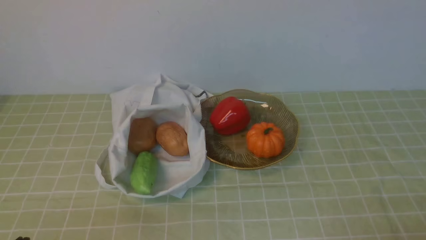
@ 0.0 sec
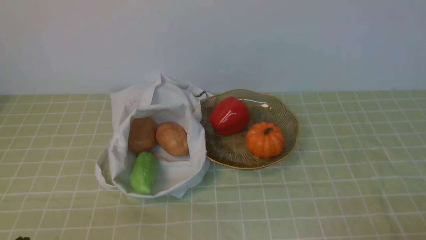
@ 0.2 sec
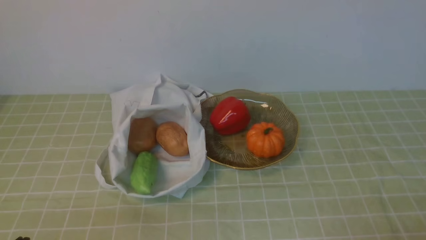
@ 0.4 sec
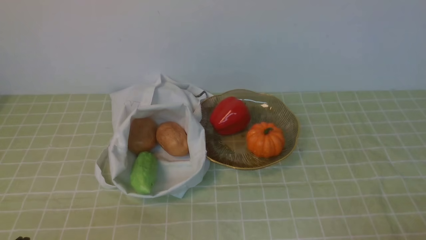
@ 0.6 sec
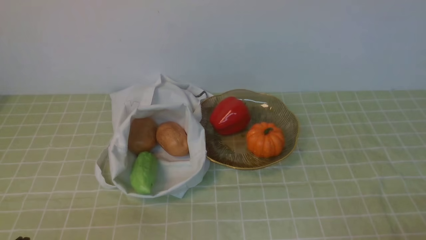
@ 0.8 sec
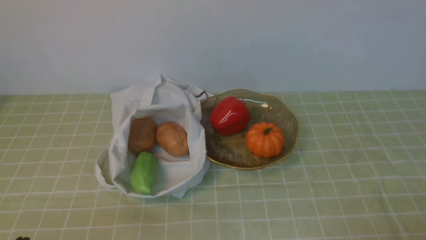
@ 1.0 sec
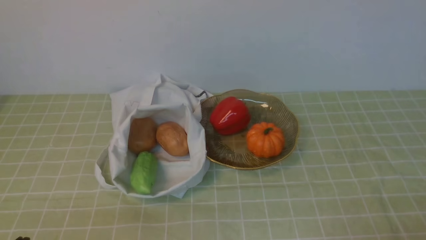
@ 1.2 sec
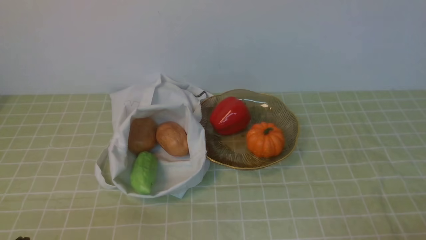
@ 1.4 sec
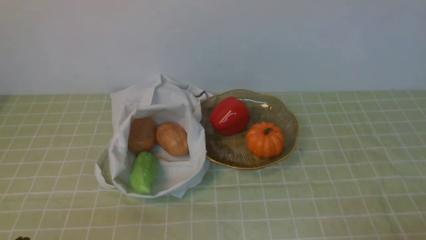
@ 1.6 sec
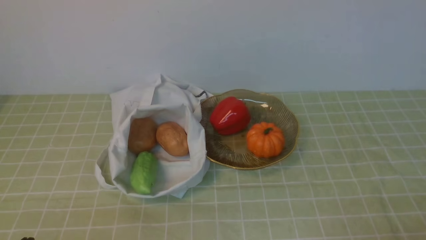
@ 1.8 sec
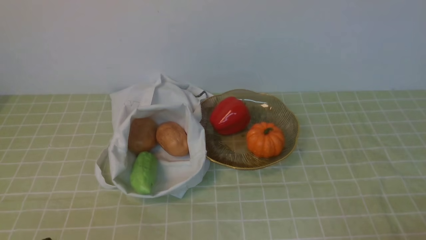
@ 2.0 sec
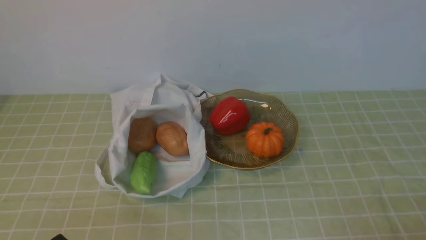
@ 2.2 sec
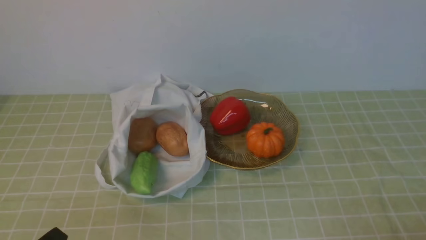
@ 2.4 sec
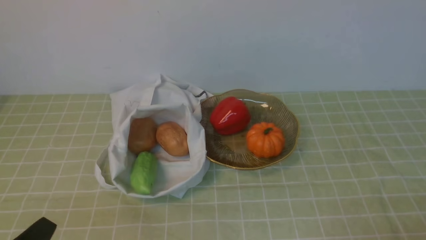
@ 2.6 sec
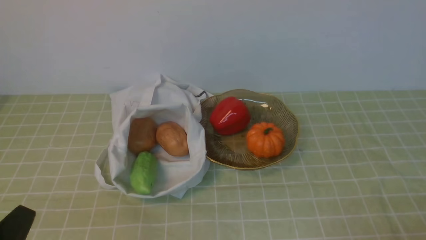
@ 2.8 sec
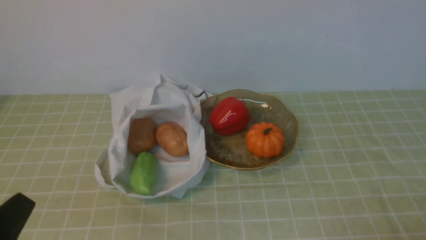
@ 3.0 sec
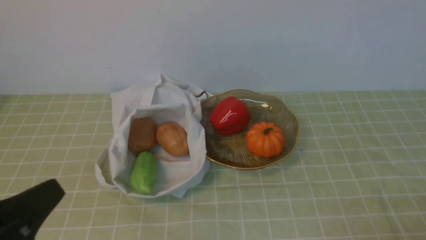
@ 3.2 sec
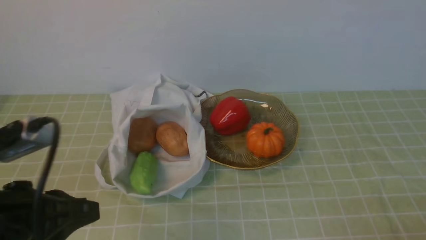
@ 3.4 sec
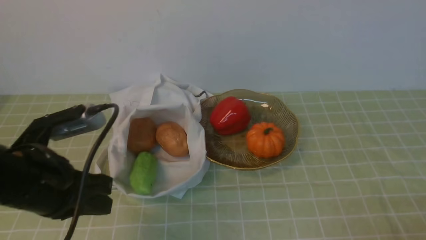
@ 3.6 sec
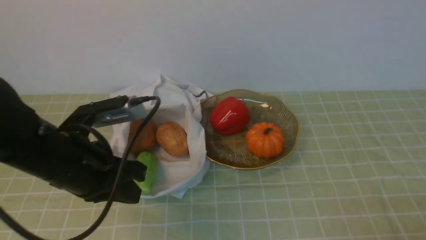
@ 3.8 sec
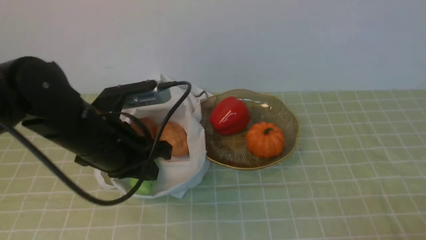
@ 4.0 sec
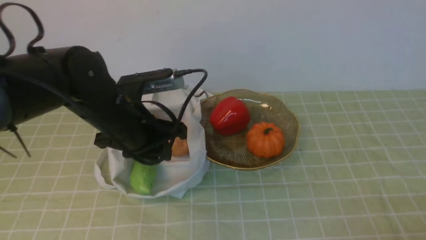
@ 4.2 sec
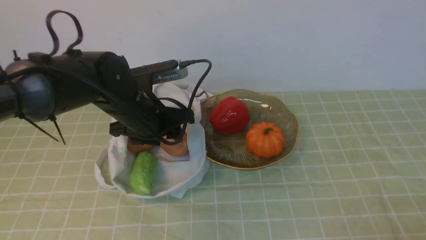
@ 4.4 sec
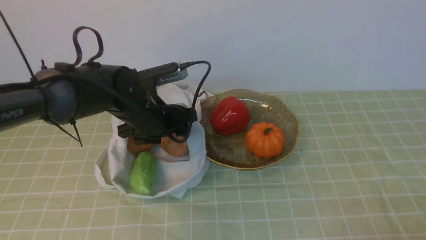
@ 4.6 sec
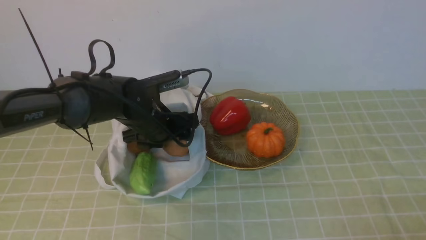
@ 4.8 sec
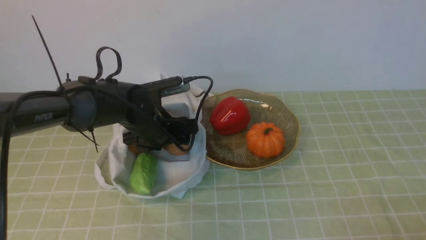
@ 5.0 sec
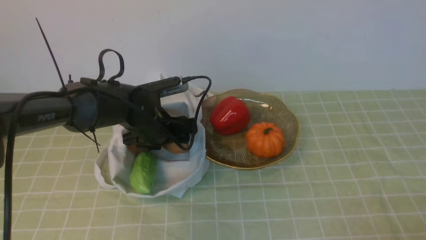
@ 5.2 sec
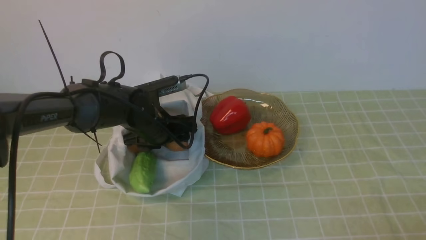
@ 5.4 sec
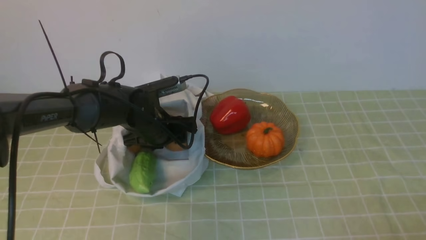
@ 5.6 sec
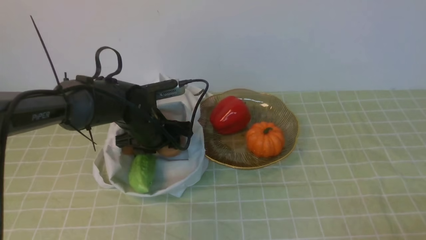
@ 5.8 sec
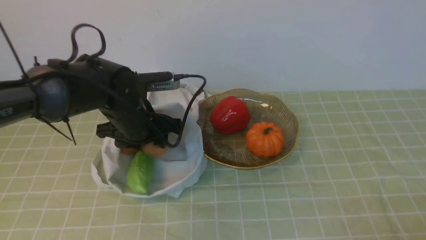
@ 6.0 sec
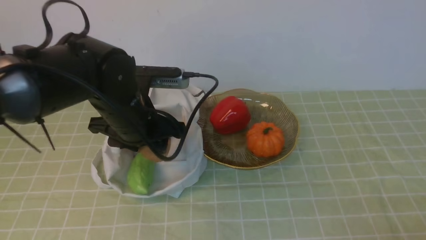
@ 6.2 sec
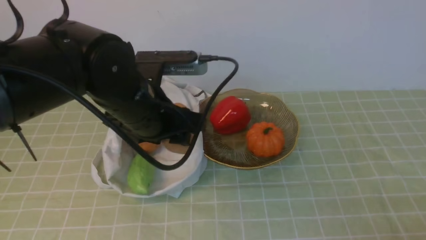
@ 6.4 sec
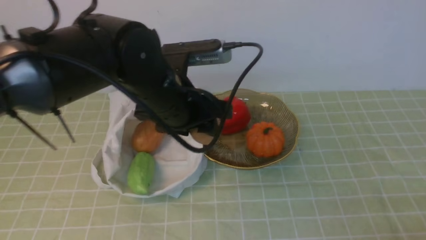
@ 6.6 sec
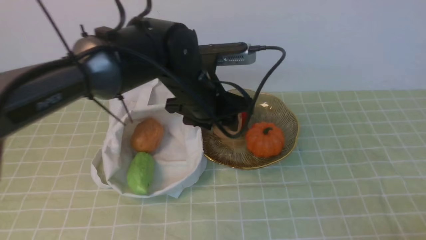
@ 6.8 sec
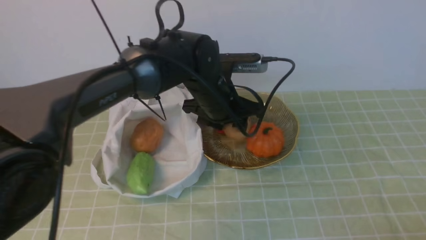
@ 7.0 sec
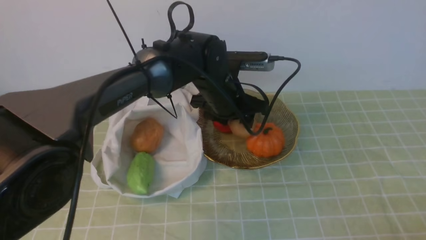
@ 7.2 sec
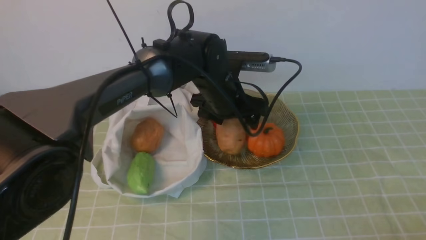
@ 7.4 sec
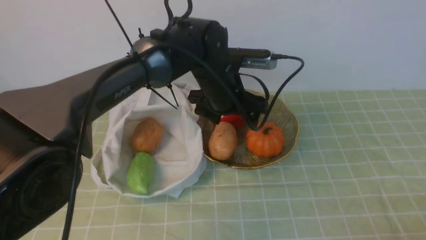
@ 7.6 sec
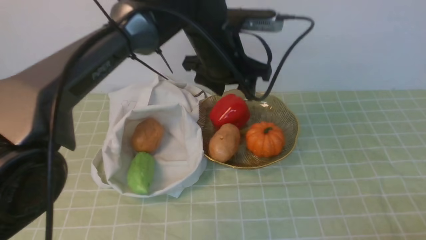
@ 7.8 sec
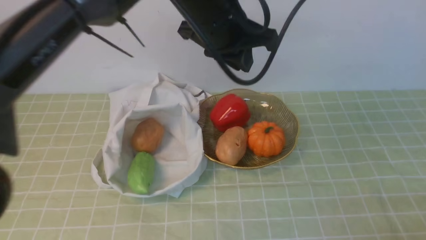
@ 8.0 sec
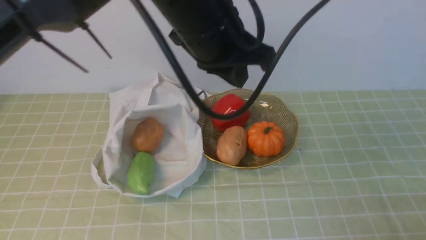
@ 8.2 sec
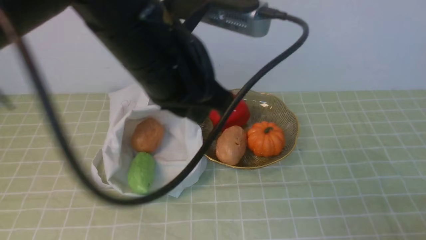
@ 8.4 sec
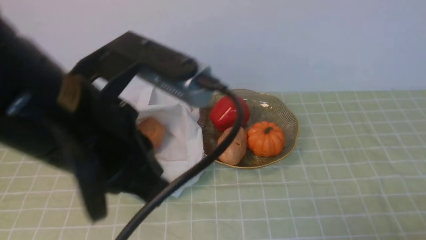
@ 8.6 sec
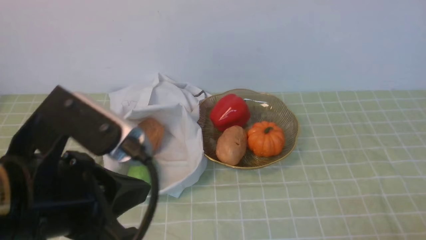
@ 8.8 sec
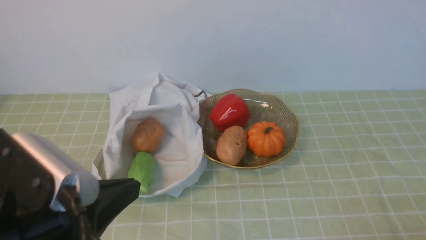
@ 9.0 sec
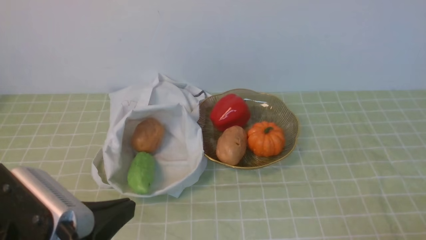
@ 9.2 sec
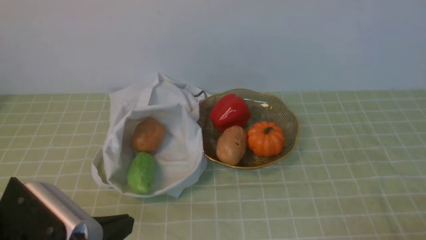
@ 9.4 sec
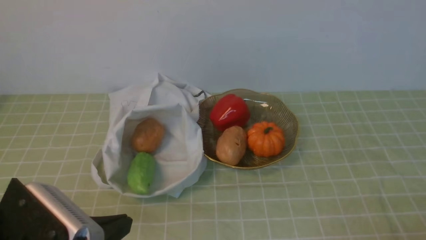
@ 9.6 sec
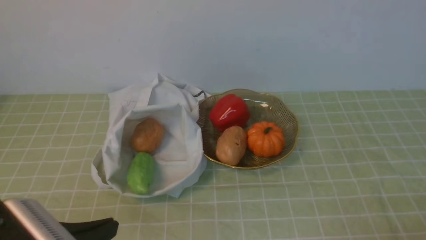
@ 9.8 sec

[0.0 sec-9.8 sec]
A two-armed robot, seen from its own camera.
Task of the whole recording: take vegetables from bag on green coffee tablecloth place on plate.
Step, 0.0 sec to 5.6 sec: Grasp the potato with left gripper.
Step, 5.8 sec to 7.8 sec: Place the potato on the plate with left gripper.
2.8 sec to 4.2 sec: The left gripper moves forward and to the right, some 25 cm.
4.2 sec to 5.6 sec: The left gripper goes some 15 cm downward and forward, and opens up.
5.6 sec to 7.0 sec: The left gripper moves to the right and upward, approximately 15 cm.
7.0 sec to 8.4 sec: The left gripper shifts some 20 cm upward and backward, and closes its fingers.
8.4 sec to 9.8 sec: The left gripper is displaced backward, downward and to the left by some 30 cm.

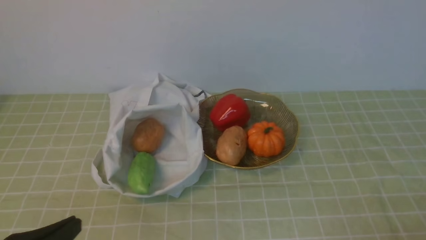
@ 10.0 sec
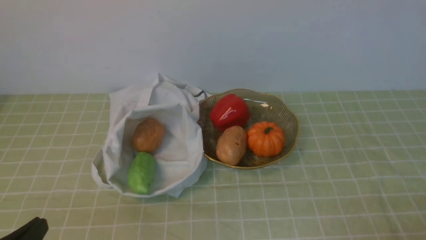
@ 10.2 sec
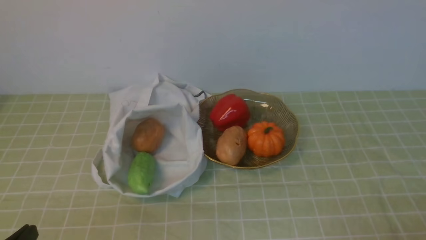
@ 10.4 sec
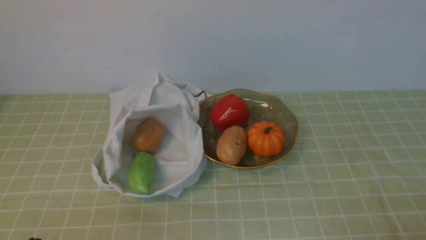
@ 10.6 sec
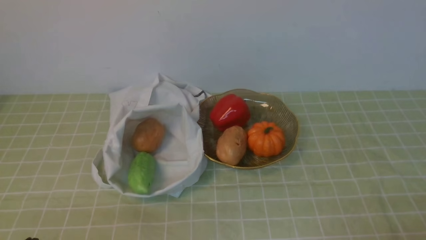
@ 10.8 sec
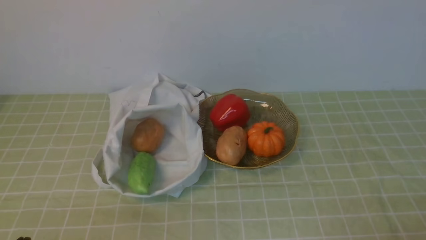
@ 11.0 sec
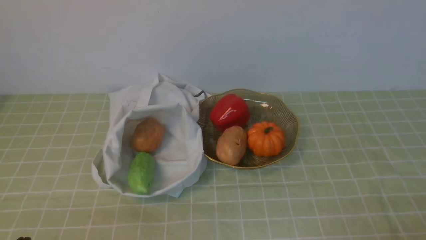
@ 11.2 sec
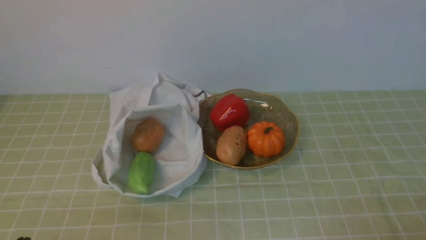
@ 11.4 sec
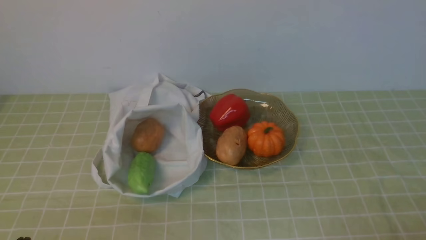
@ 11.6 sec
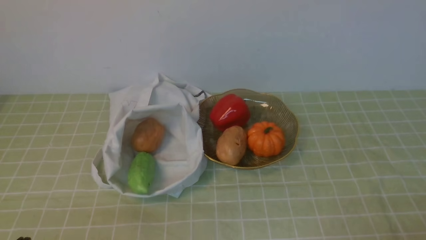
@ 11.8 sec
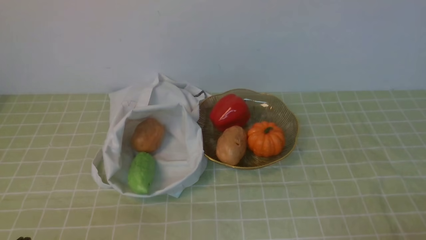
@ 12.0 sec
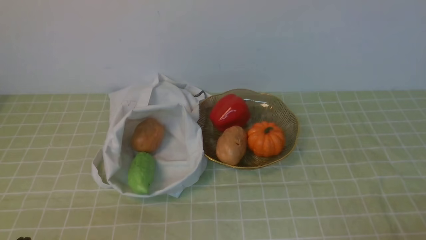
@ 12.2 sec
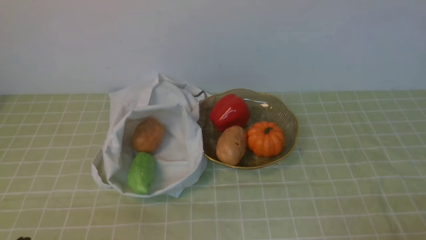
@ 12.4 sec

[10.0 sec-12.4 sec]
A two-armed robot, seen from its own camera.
Task of the whole recording: take vegetables from bag on green coffee tablecloth place on plate.
10.0 sec to 11.2 sec: The left gripper heads downward, covering some 5 cm.
11.2 sec to 12.4 sec: Both grippers stay about where they are.
